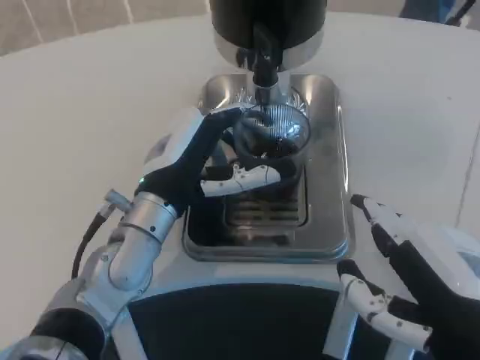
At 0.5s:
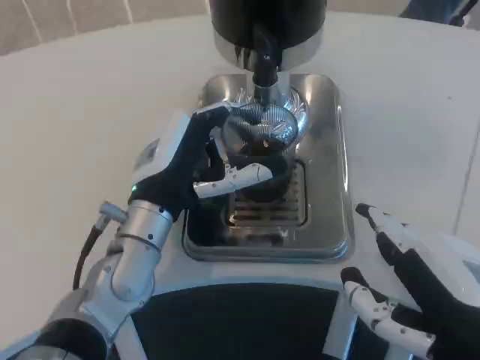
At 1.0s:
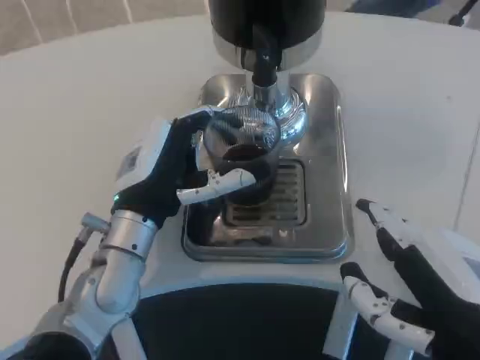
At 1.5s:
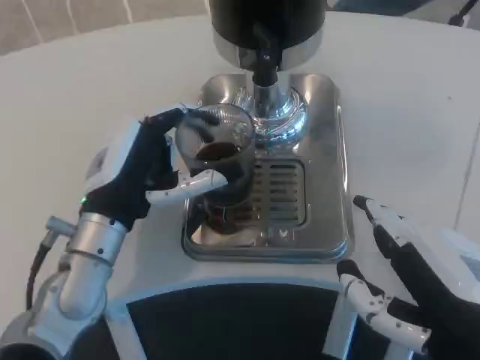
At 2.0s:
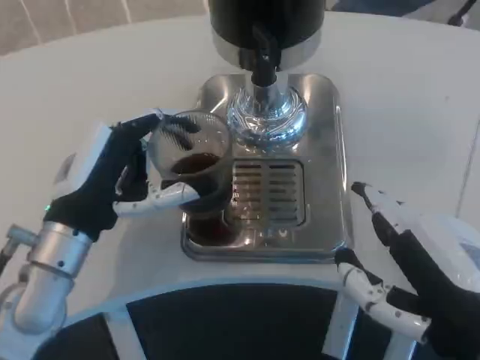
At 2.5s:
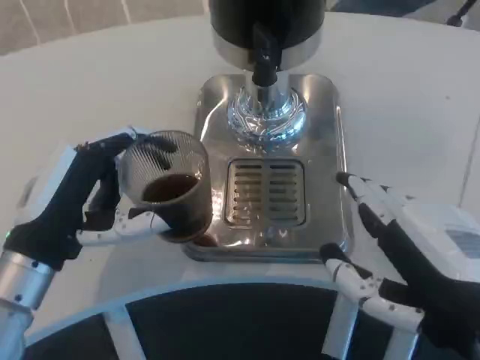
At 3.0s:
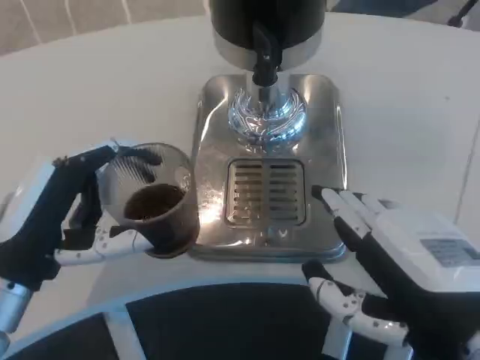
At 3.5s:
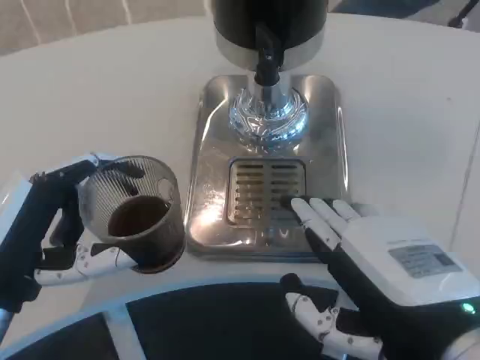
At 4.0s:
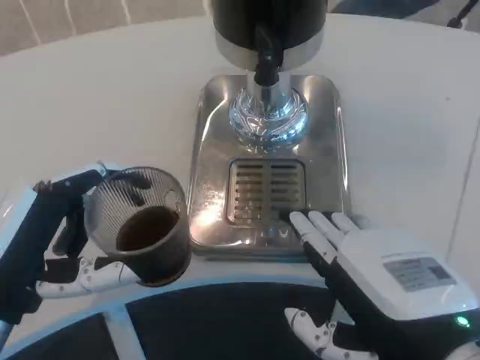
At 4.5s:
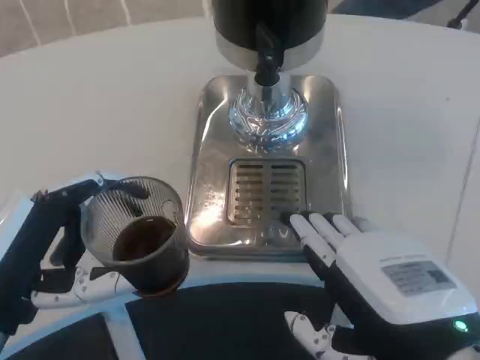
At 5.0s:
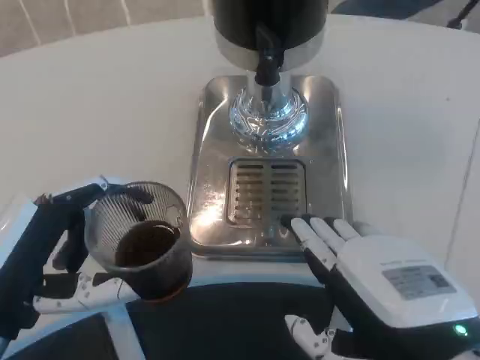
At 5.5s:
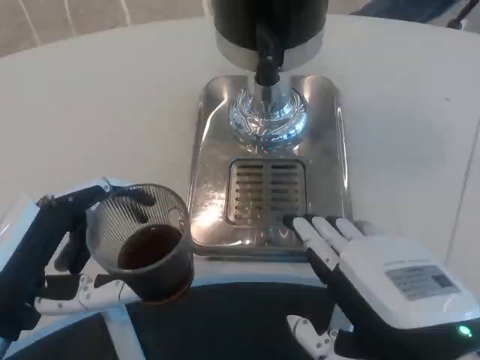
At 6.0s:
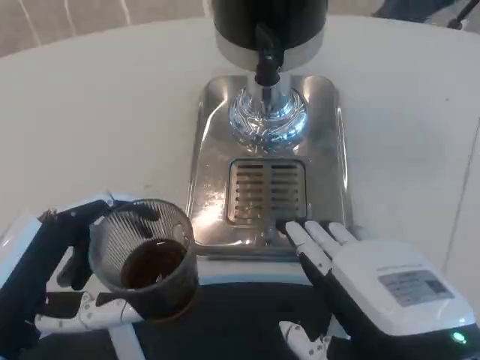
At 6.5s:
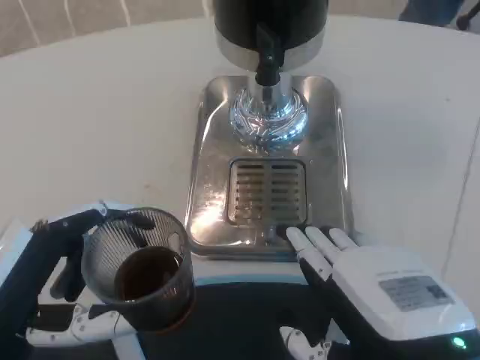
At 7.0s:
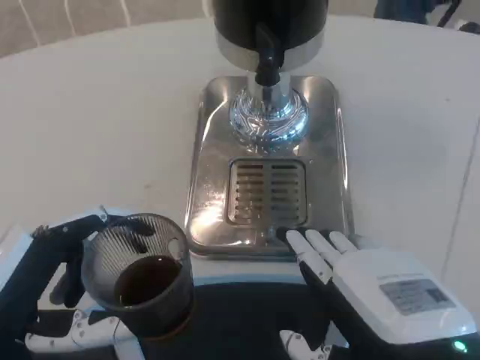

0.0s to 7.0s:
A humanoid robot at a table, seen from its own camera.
Task of the whole recording: Grasp the cup under the faucet to collect the drink, then remove the cup.
0.0s to 2.0s: The left hand heads to the left, covering some 10 cm.
2.0s to 3.5s: The left hand moves backward, roughly 10 cm.
3.5s to 7.0s: The hands move only a little.

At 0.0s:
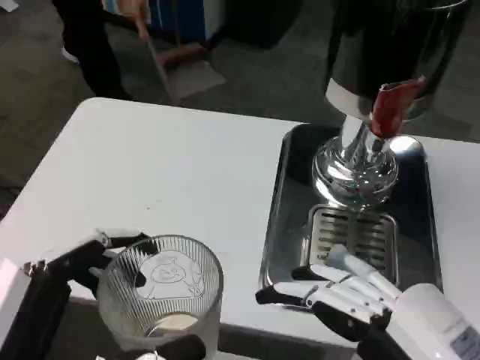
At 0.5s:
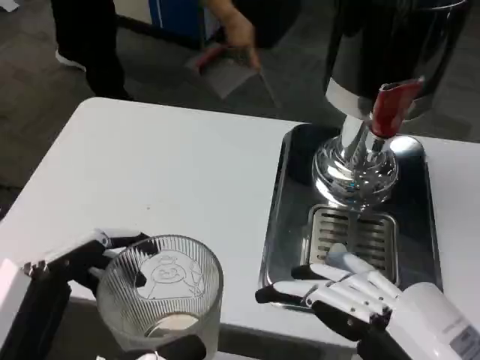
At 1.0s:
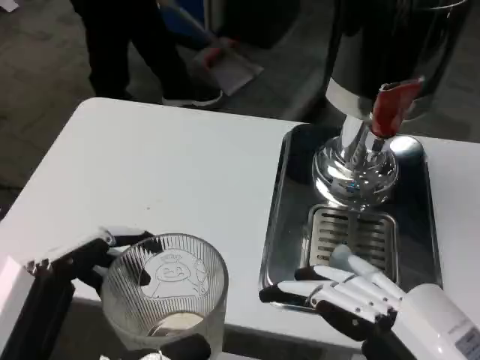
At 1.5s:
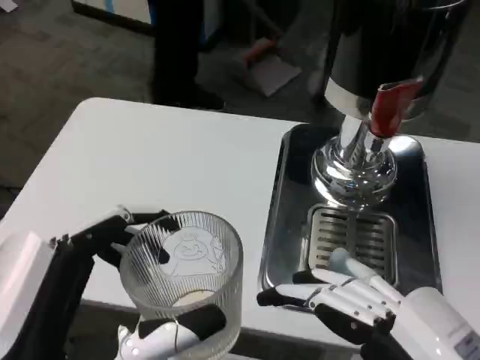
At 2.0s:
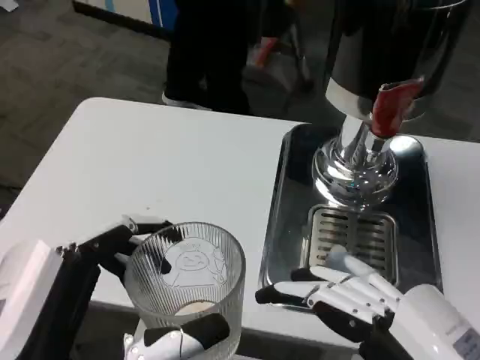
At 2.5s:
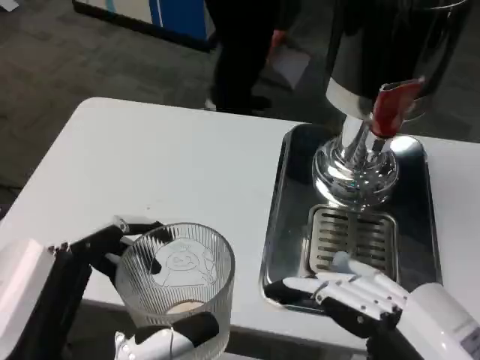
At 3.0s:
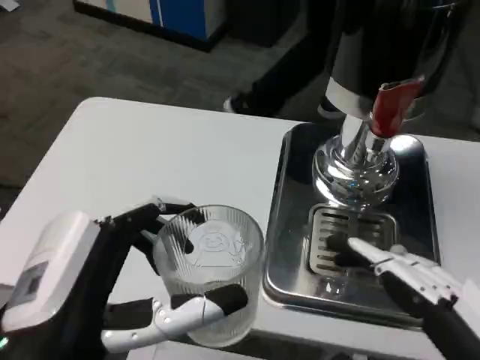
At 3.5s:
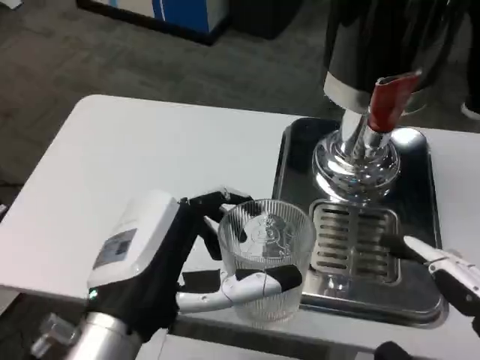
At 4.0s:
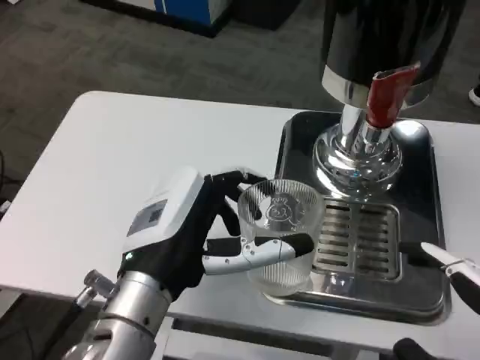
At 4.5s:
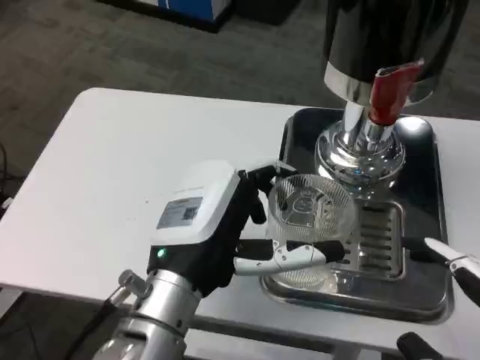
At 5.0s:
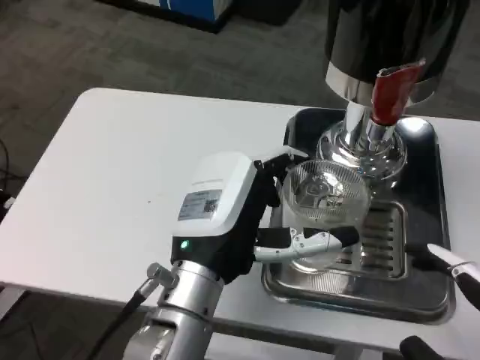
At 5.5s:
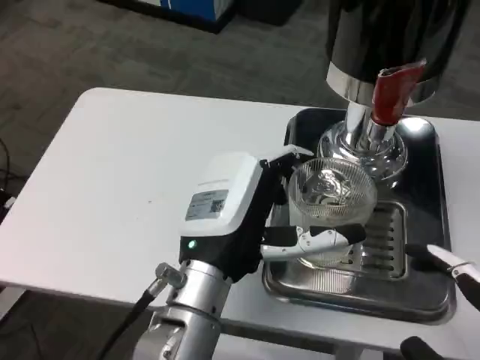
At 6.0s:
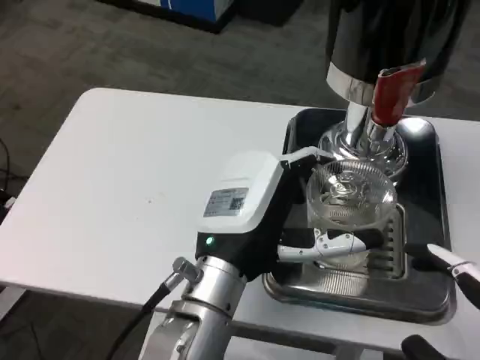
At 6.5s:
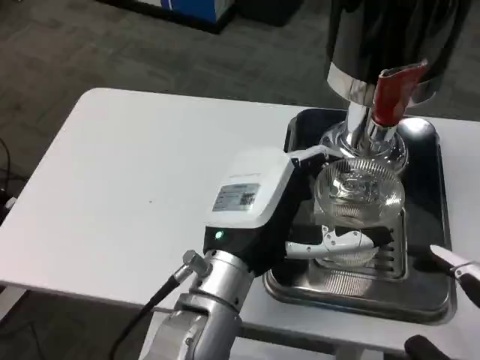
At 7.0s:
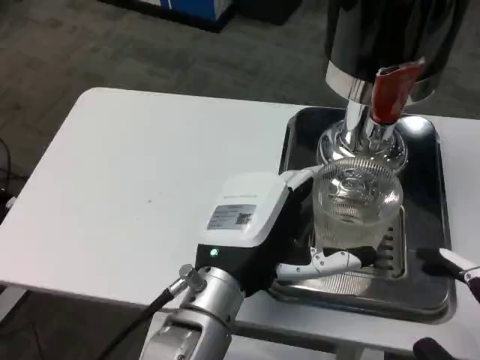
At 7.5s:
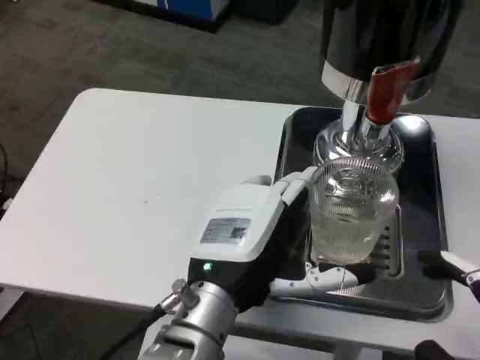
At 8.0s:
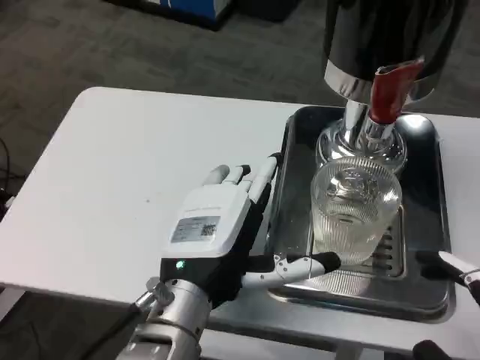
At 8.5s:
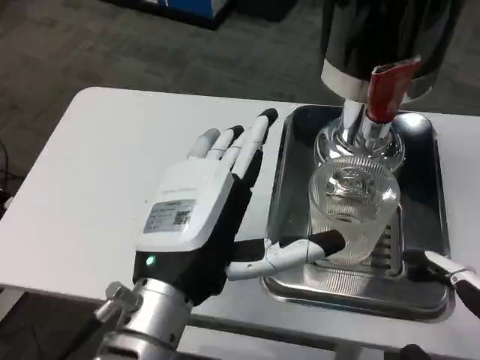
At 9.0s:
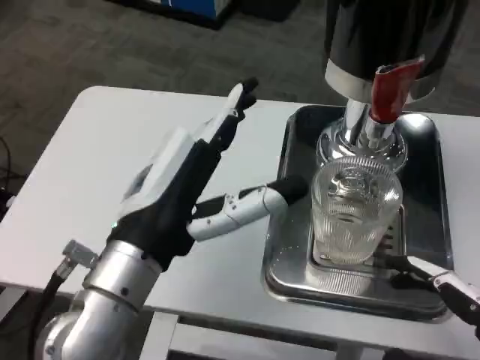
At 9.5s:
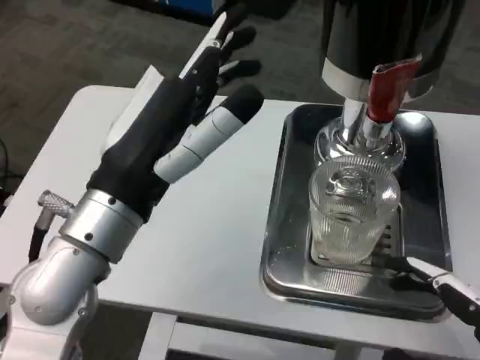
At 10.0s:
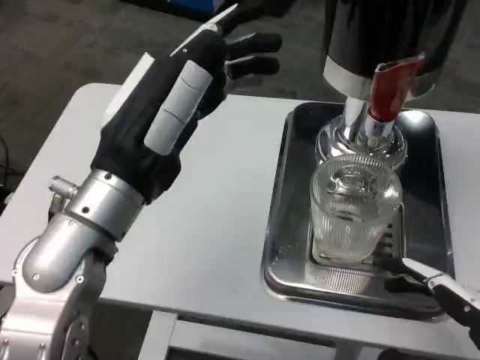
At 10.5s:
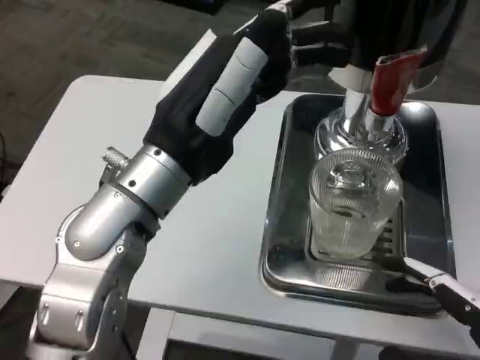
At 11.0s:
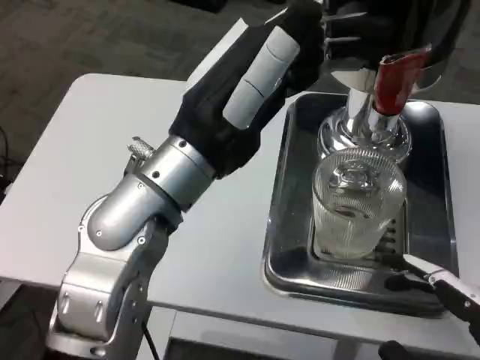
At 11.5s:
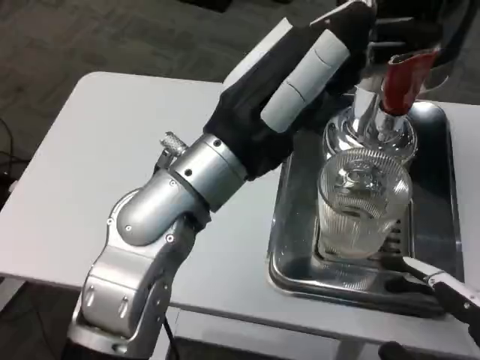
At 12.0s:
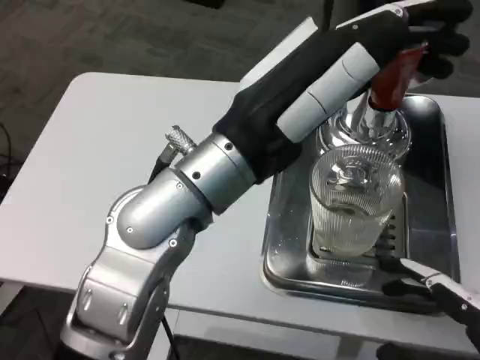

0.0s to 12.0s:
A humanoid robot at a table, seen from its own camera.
Task of the whole recording: Grasp the cup under the faucet to collect the drink, then remove the cup.
2.0s to 4.0s: The left hand shifts approximately 15 cm forward and to the right. The right hand ends up some 5 cm from where it was.
4.0s to 6.0s: The left hand shifts some 5 cm to the right.
8.0s to 10.0s: The left hand moves upward and to the left, approximately 10 cm.
10.0s to 12.0s: The left hand goes about 5 cm to the right.

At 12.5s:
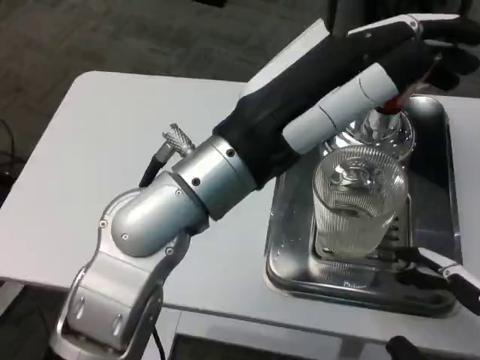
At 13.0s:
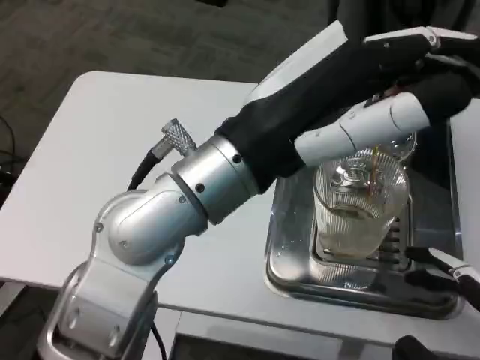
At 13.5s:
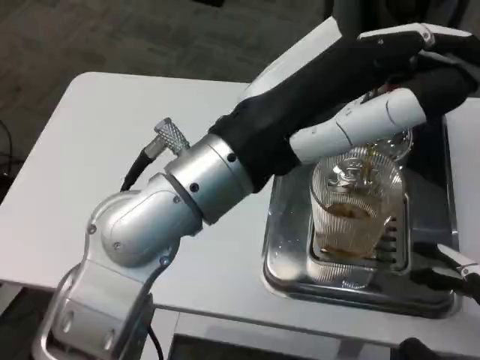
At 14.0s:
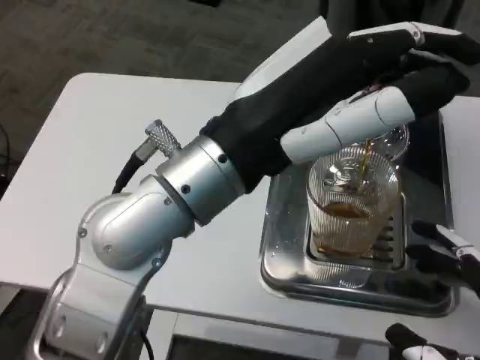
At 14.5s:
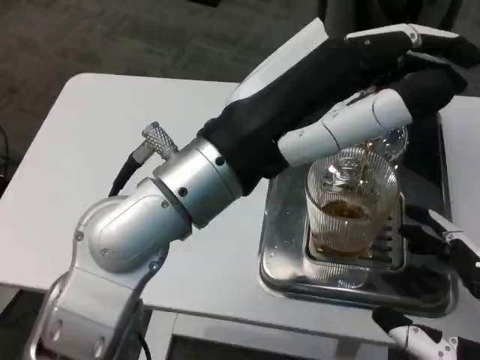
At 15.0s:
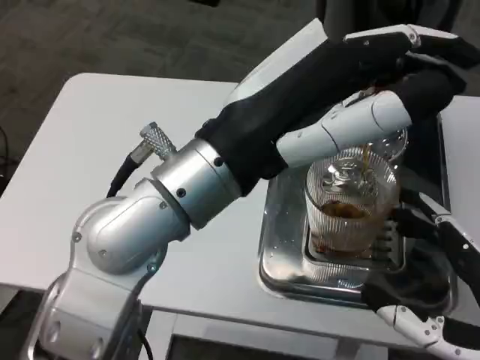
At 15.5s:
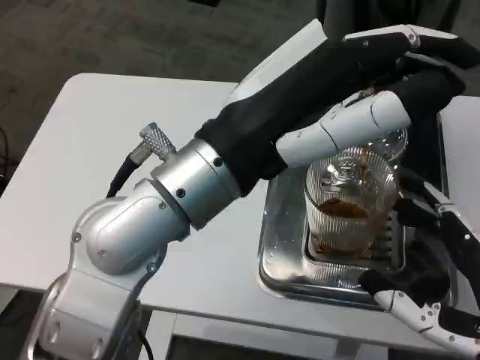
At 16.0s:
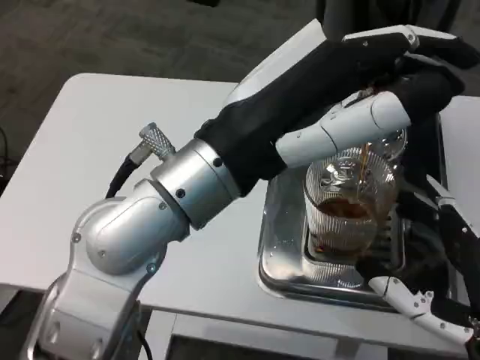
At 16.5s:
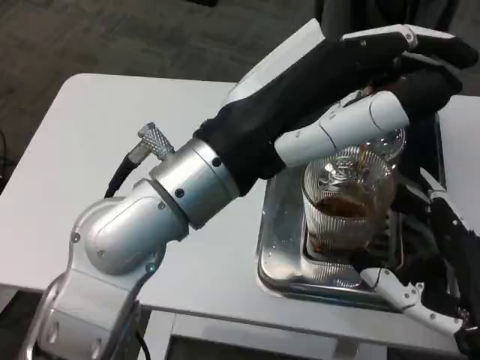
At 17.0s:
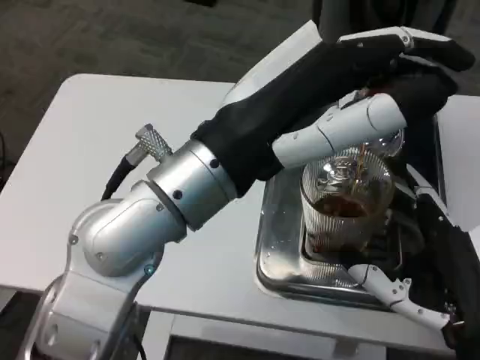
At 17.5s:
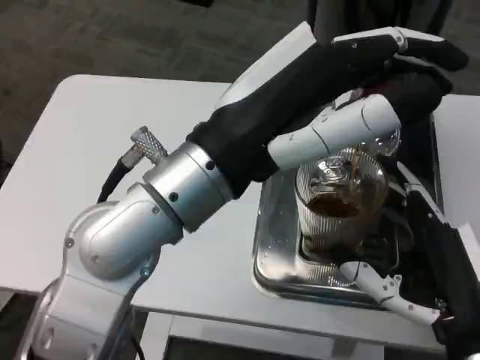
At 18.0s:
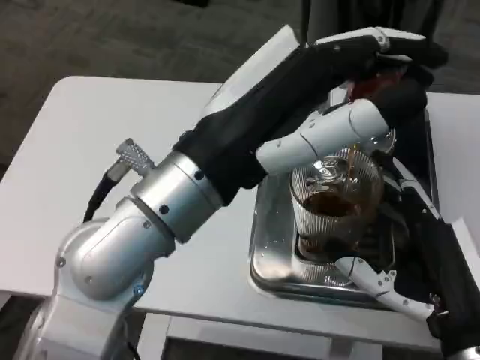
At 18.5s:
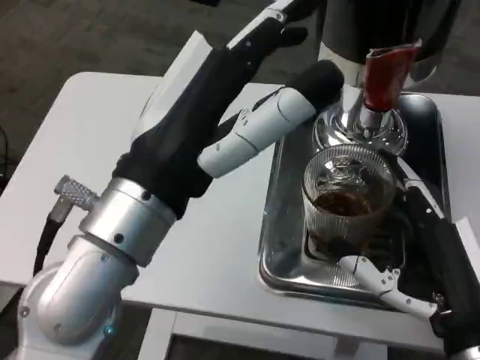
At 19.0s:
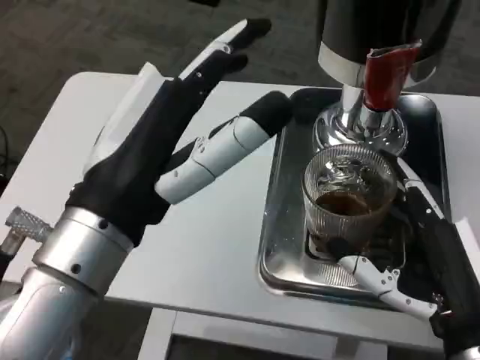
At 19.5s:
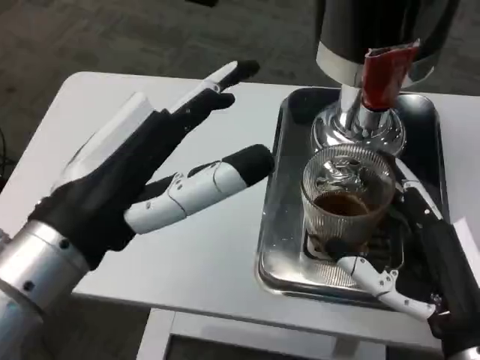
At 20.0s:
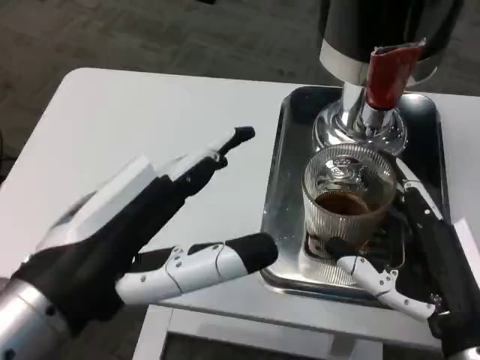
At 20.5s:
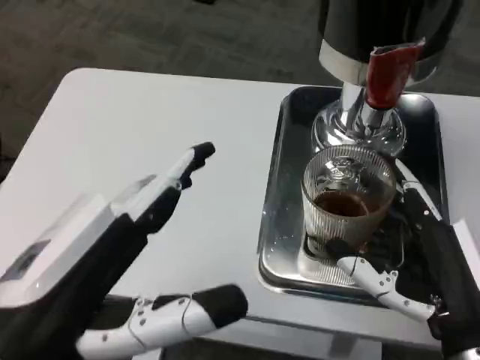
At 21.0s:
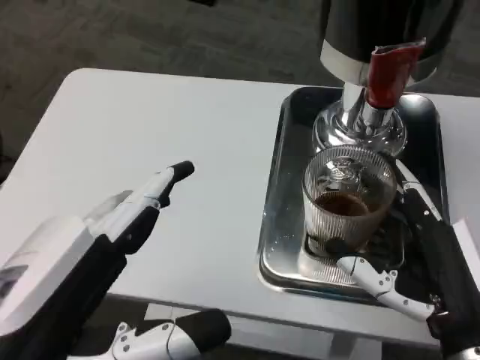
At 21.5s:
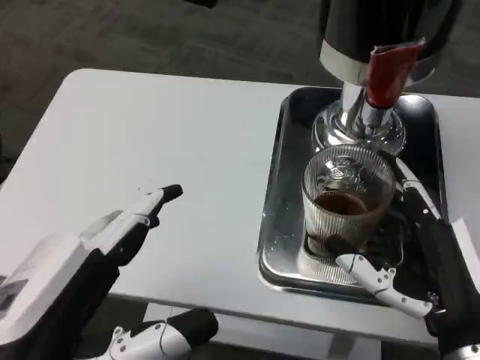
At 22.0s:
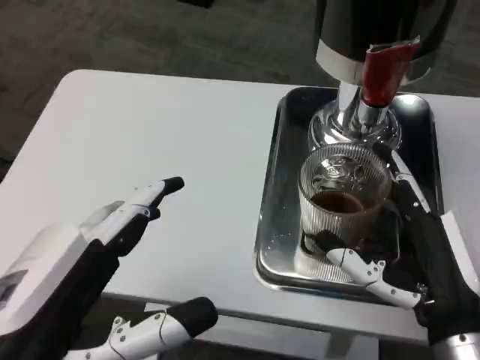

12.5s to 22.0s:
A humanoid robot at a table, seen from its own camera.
Task of the whole recording: Grasp the cup under the faucet to collect the drink, then remove the cup.
14.5s to 16.5s: The right hand shifts by about 5 cm.
18.0s to 20.0s: The left hand goes approximately 10 cm backward and to the left.
20.0s to 22.0s: The left hand changes place by about 5 cm.
